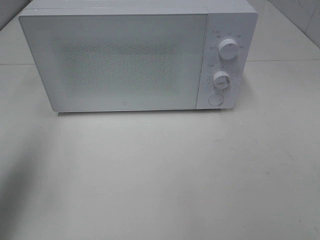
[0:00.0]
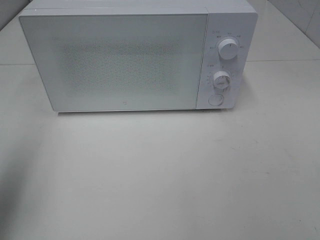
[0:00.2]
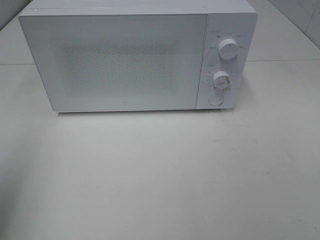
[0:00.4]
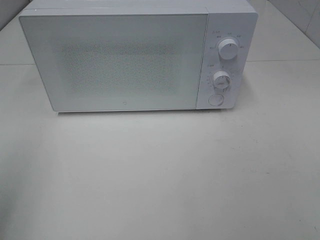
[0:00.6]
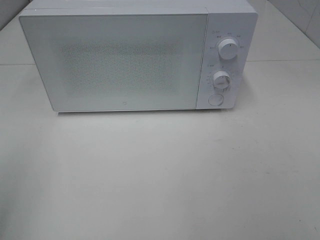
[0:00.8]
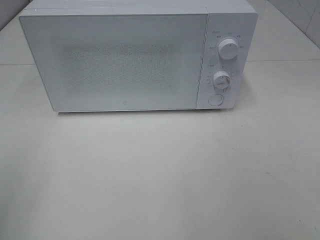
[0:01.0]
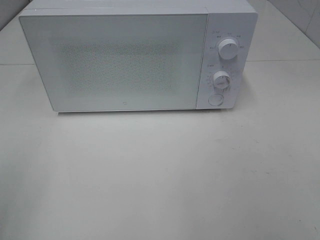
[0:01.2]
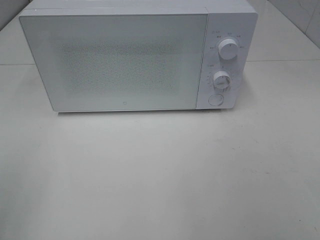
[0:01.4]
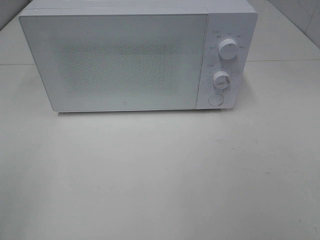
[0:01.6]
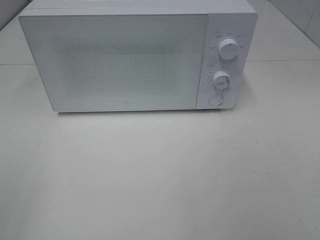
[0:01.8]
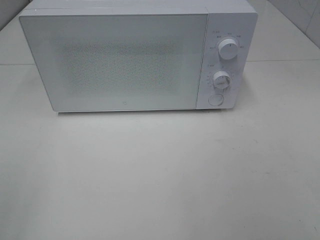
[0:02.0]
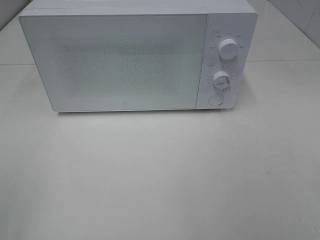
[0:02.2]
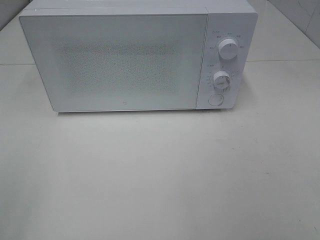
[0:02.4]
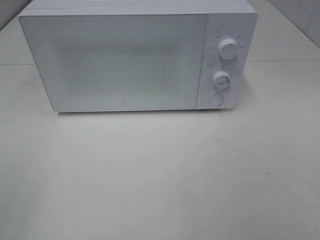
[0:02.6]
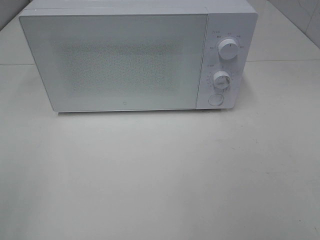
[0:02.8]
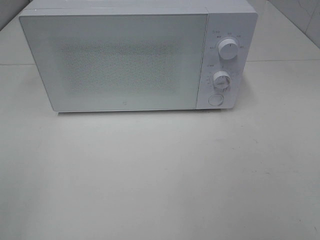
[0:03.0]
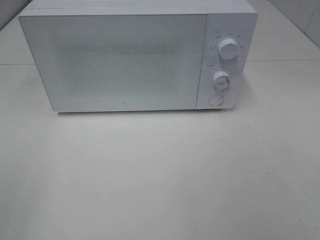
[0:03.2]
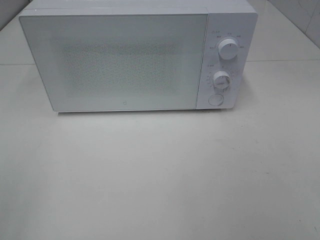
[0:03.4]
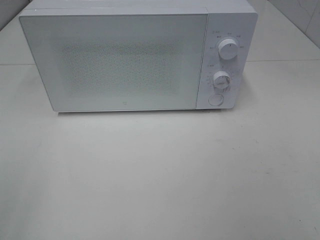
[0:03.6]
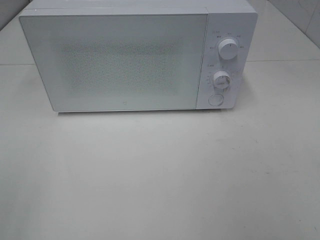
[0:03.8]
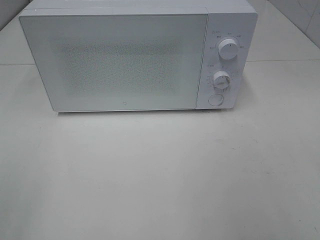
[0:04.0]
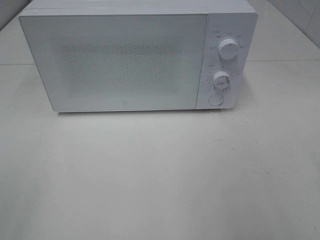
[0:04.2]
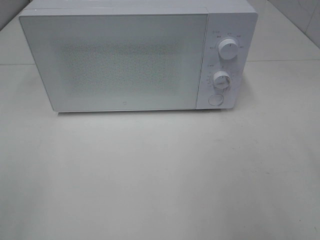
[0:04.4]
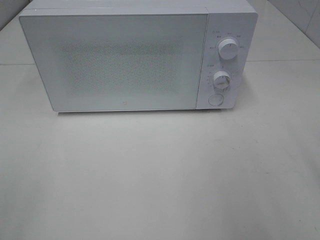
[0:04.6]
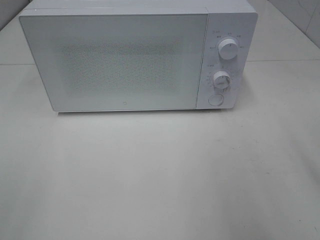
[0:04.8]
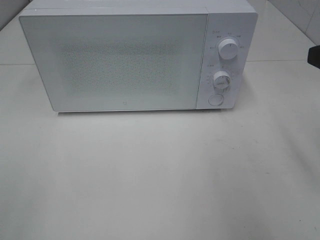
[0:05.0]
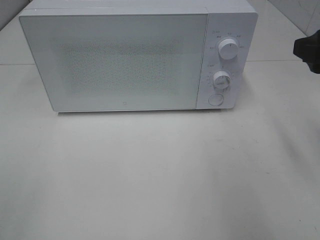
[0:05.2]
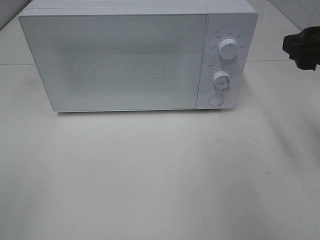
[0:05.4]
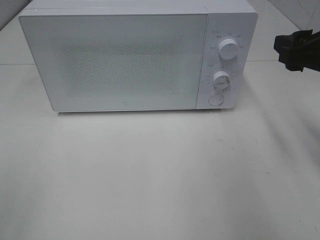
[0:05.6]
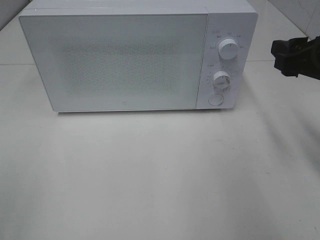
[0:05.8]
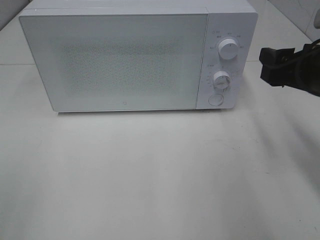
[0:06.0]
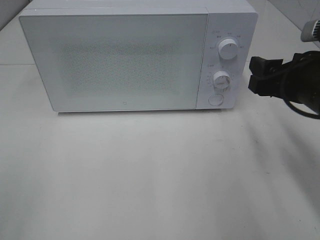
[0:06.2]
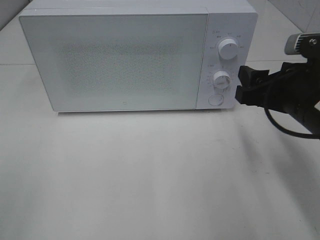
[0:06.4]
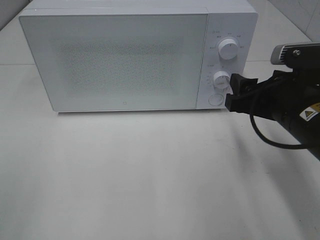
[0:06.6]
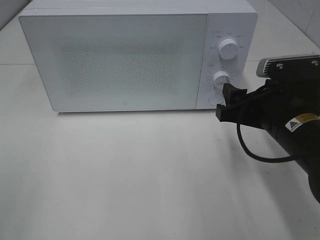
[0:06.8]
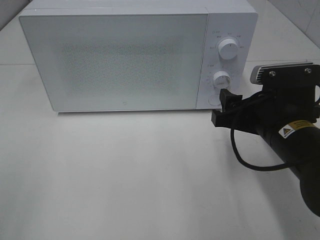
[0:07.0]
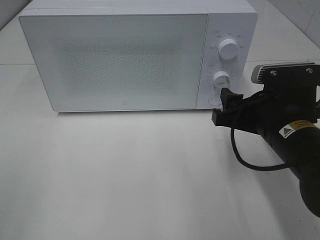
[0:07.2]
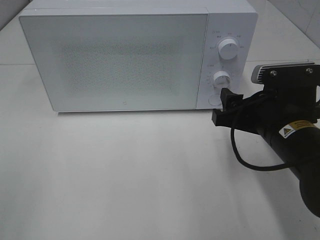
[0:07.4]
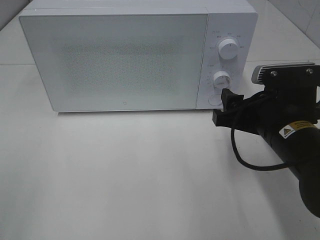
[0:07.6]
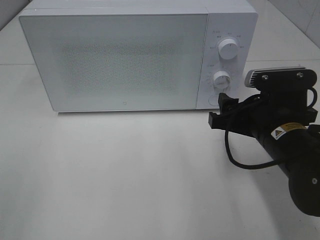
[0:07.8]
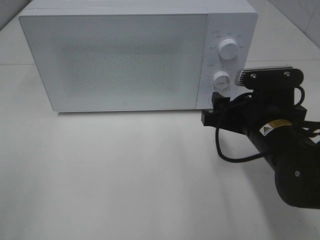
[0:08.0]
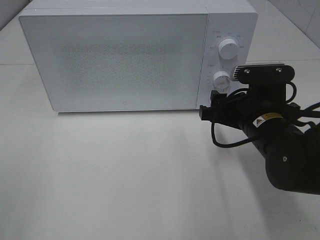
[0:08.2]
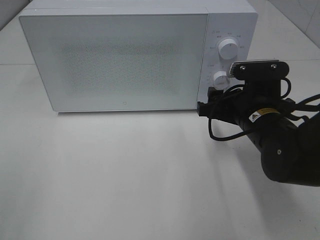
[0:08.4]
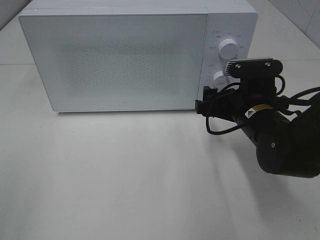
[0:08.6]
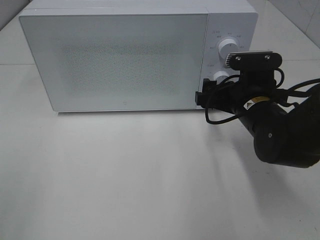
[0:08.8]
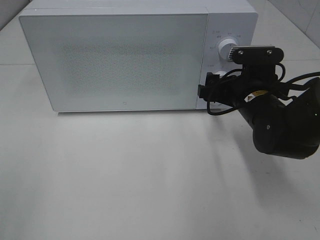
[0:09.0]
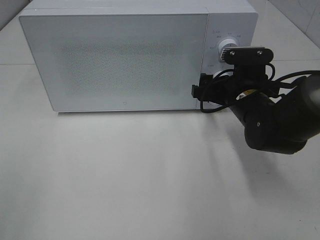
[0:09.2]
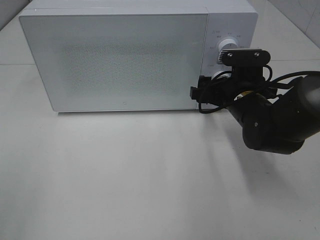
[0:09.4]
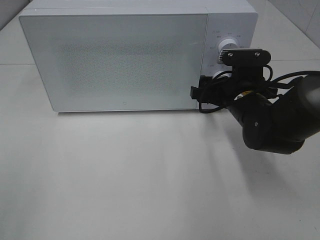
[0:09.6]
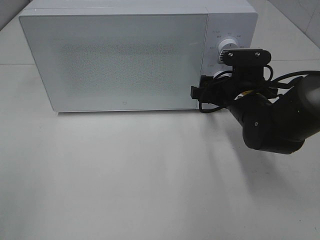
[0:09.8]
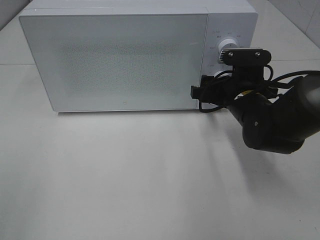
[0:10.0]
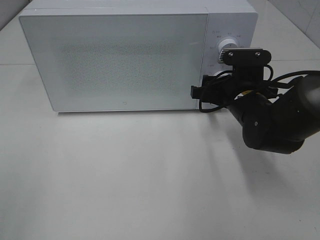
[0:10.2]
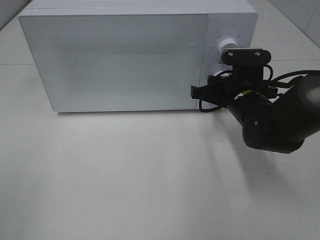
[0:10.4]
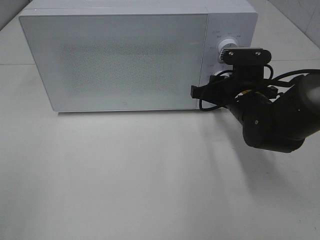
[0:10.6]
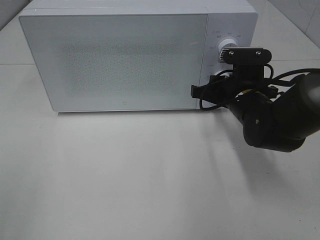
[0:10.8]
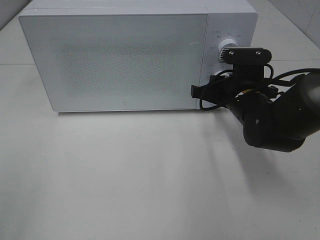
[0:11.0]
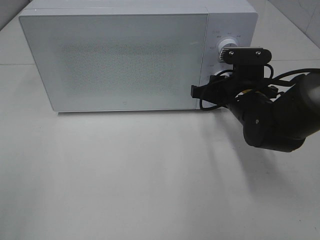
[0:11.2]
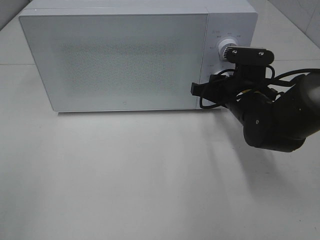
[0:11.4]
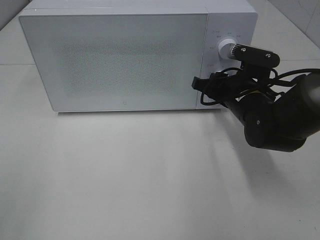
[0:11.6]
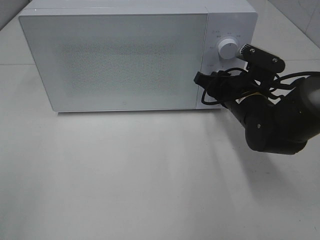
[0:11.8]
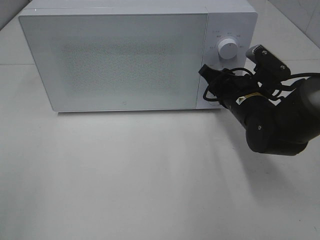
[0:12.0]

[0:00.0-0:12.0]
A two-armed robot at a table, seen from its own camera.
Task of the whole recording: Heat Sandwich.
0:00.0 to 0:01.6: The left gripper moves backward, some 20 cm.
0:01.6 to 0:03.0: Neither gripper changes place.
0:04.4 to 0:06.0: The right gripper travels forward and downward by about 15 cm.
0:06.0 to 0:07.6: The right gripper is displaced downward and to the left by approximately 10 cm.
0:07.6 to 0:09.0: The right gripper goes approximately 10 cm forward.
0:09.0 to 0:10.4: The right gripper closes up.

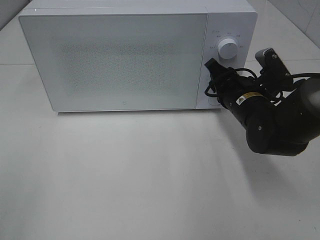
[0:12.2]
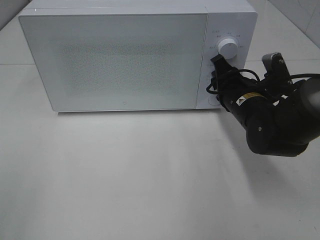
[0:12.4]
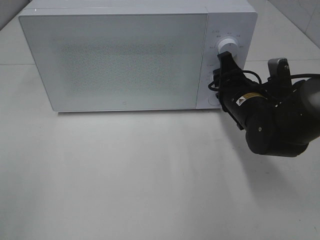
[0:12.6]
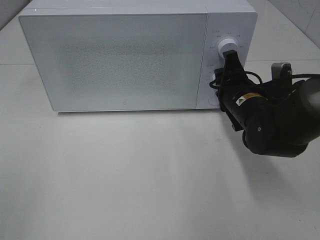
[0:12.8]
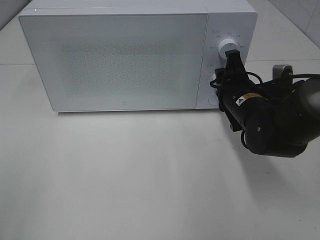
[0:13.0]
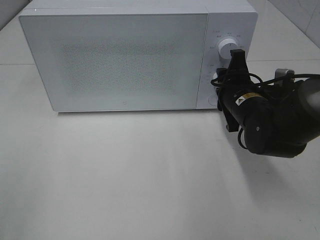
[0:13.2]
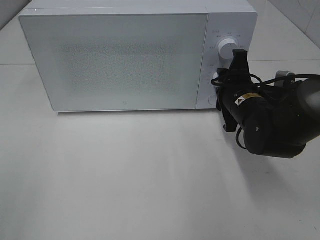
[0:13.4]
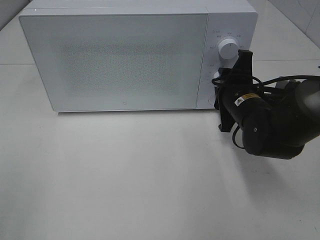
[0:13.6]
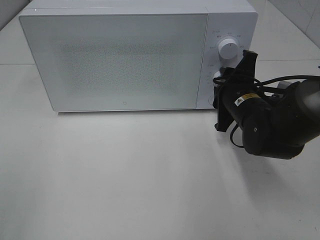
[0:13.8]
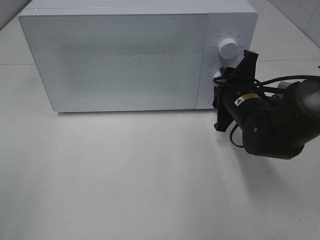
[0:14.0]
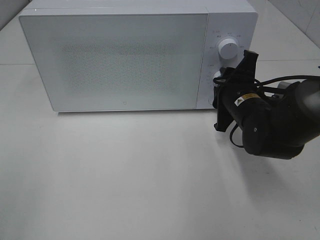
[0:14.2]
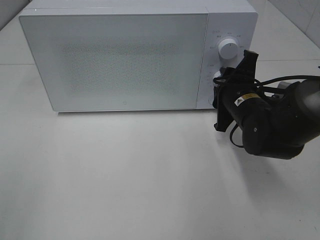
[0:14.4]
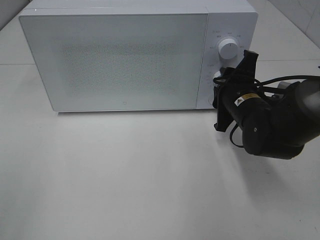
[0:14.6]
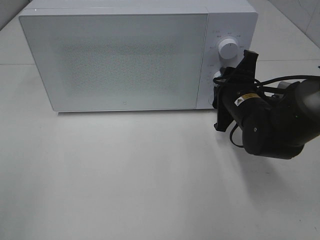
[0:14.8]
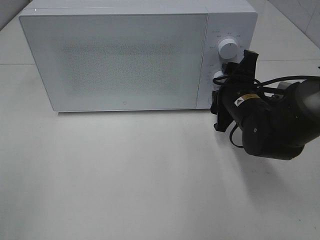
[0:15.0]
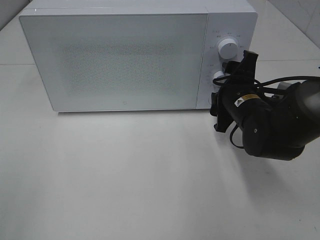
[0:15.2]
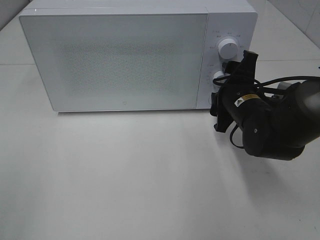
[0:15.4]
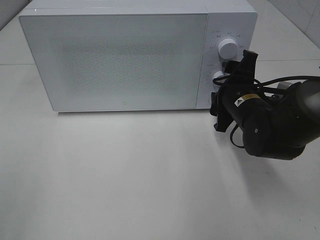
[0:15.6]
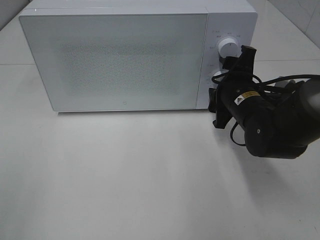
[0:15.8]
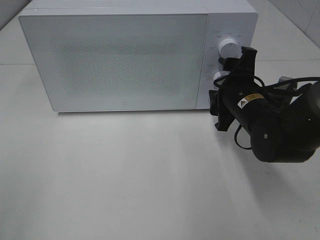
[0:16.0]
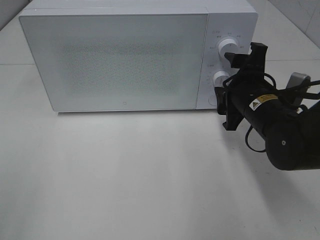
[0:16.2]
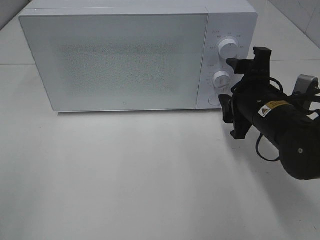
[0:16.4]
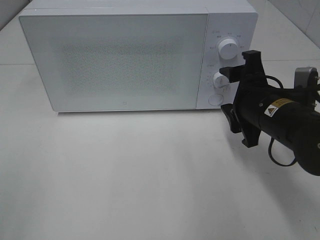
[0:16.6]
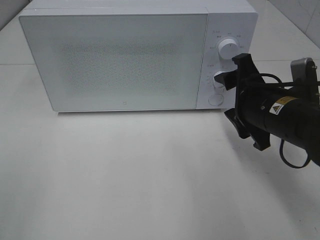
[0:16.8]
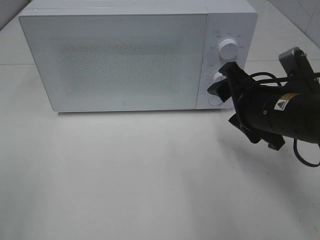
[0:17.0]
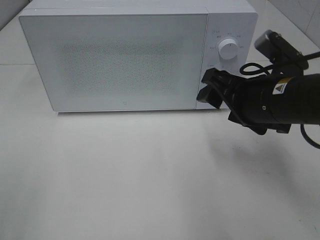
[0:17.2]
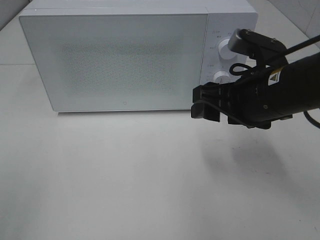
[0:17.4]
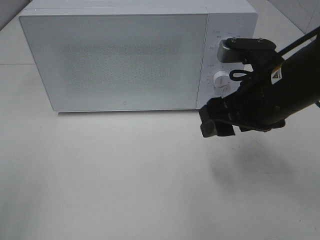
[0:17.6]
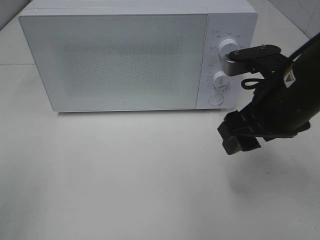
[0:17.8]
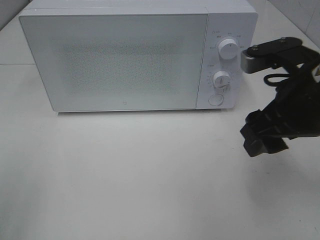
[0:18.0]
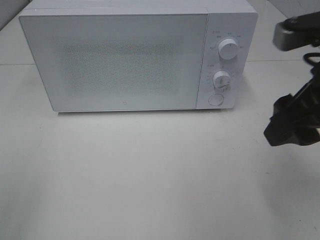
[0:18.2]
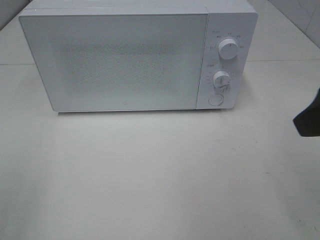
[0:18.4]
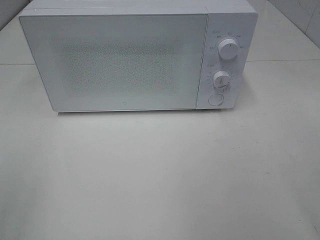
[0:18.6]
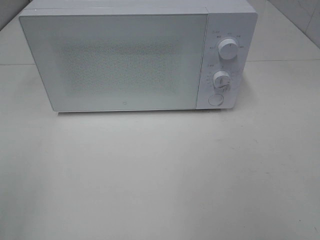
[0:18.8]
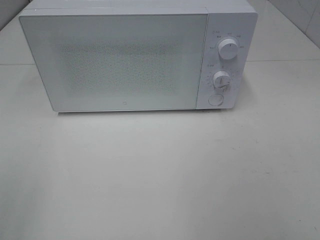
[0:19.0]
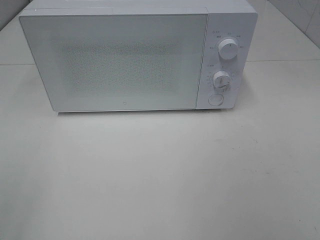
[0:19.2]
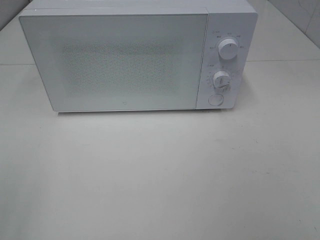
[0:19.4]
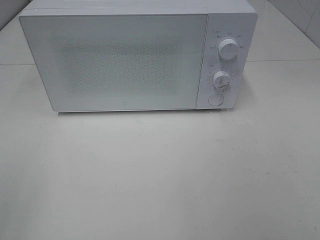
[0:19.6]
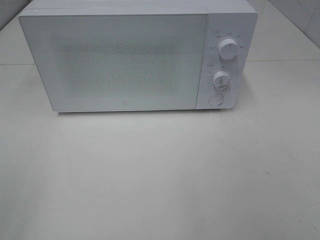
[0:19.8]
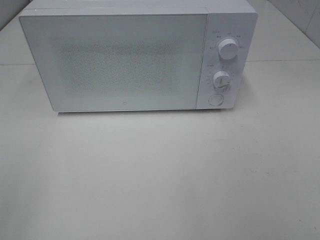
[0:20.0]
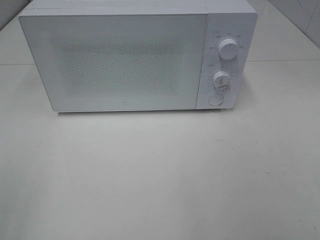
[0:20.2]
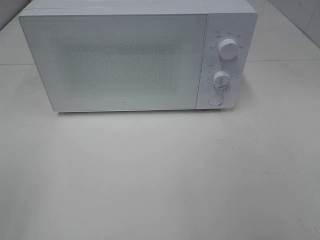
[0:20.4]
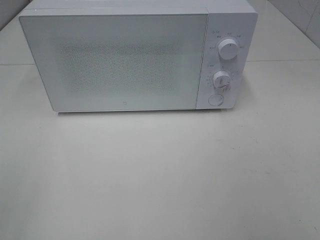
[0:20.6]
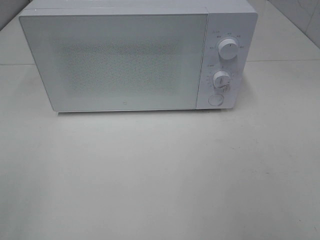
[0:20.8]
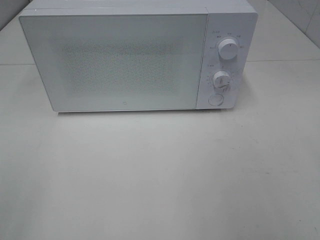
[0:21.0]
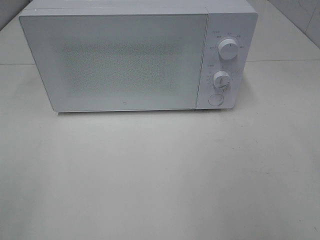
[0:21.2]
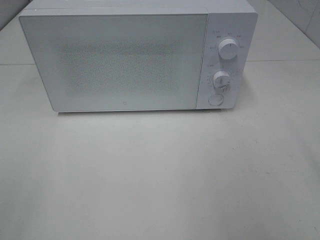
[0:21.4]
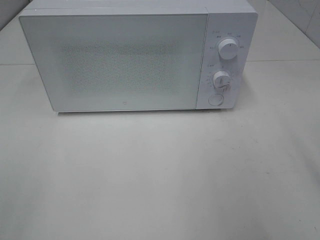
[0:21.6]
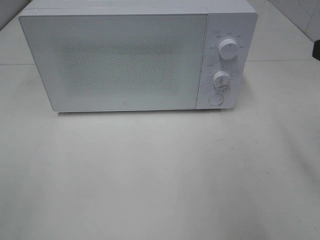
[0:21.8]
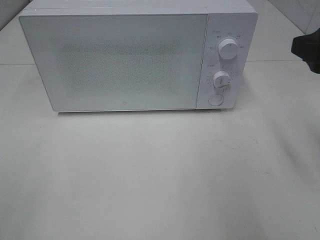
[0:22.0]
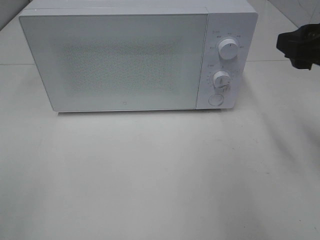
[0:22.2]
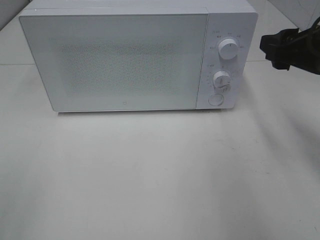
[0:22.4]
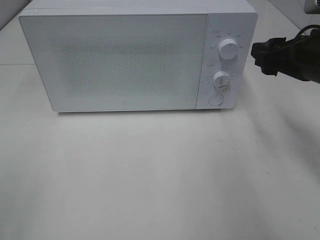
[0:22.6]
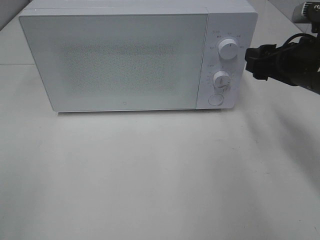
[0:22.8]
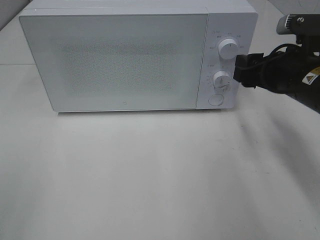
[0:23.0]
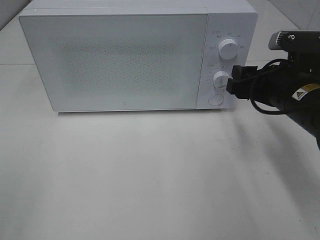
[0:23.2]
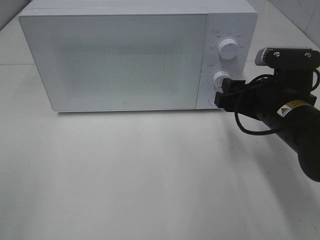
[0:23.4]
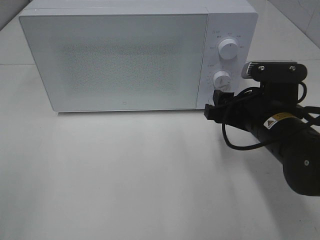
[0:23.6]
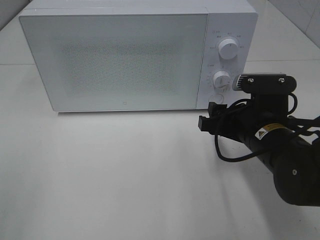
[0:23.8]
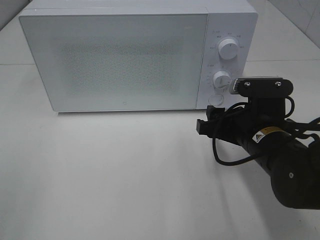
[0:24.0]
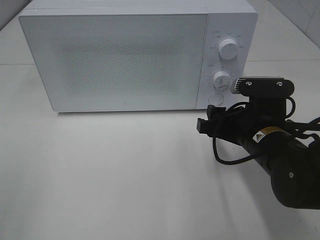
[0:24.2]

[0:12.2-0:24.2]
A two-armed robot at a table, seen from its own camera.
Task of the whole recording: Heat Sandwich.
Step, 0:12.2 to 0:15.8: Right hand: twist timer button.
0:13.8 to 0:15.2: Both grippers stay put.
0:15.2 to 0:16.6: The right gripper shifts some 5 cm backward.
0:16.6 to 0:18.2: The right gripper travels upward and backward by approximately 15 cm.
0:18.2 to 0:19.8: The right gripper shifts some 20 cm backward and to the right.
0:21.2 to 0:22.6: The right gripper heads forward and downward, covering about 20 cm.
0:22.6 to 0:24.2: The right gripper goes approximately 15 cm downward and to the left.
